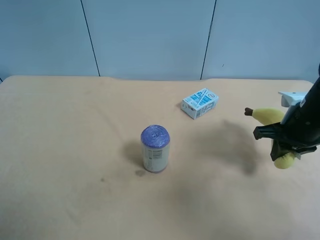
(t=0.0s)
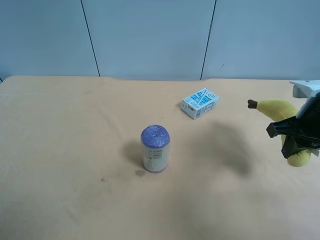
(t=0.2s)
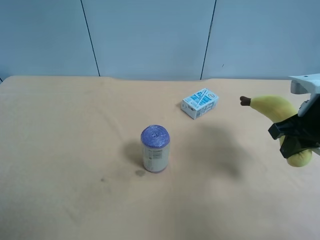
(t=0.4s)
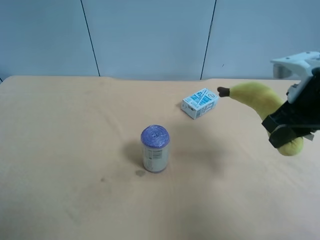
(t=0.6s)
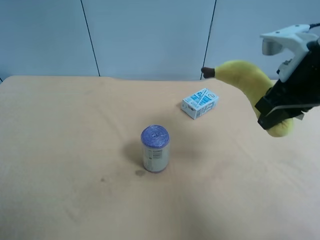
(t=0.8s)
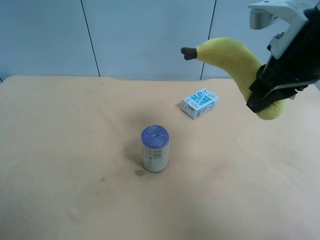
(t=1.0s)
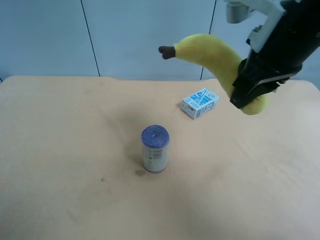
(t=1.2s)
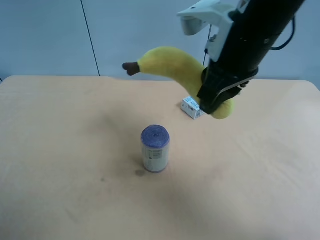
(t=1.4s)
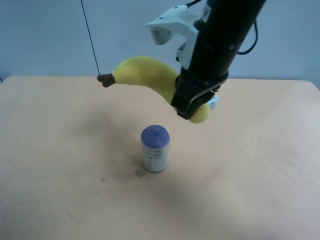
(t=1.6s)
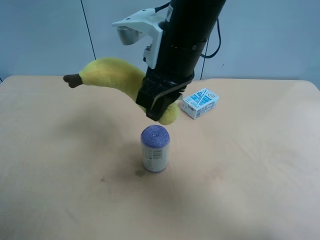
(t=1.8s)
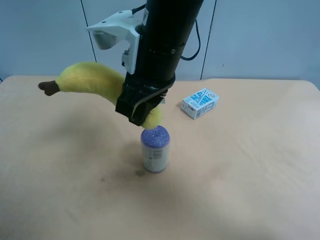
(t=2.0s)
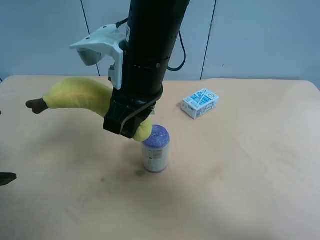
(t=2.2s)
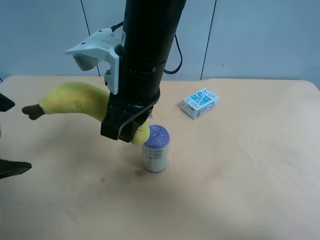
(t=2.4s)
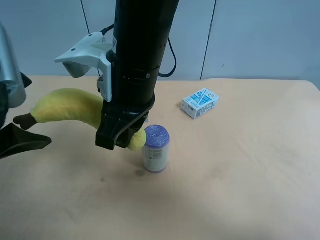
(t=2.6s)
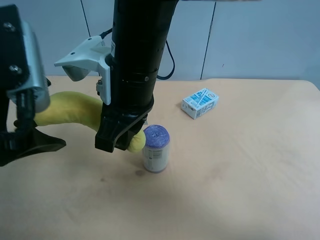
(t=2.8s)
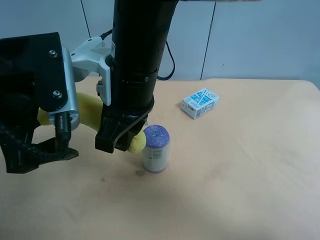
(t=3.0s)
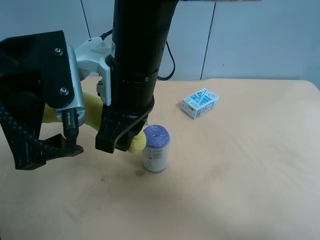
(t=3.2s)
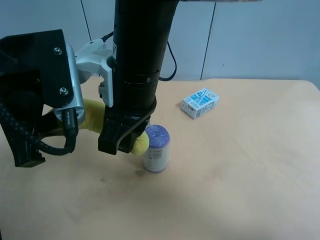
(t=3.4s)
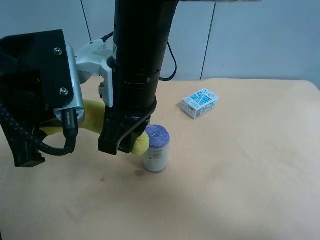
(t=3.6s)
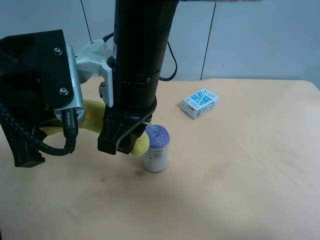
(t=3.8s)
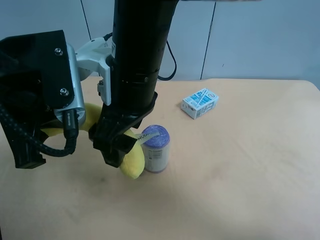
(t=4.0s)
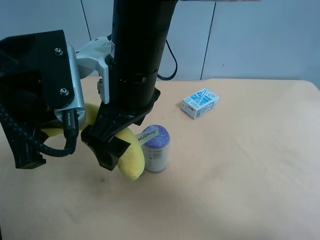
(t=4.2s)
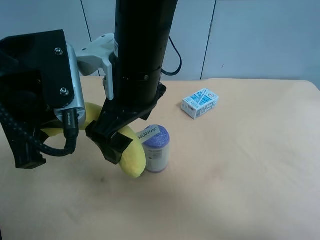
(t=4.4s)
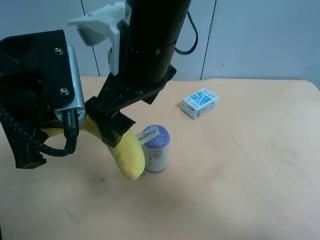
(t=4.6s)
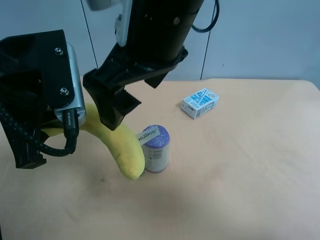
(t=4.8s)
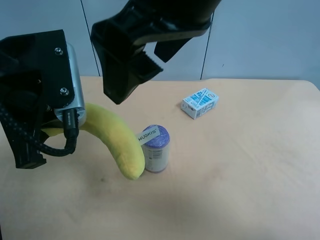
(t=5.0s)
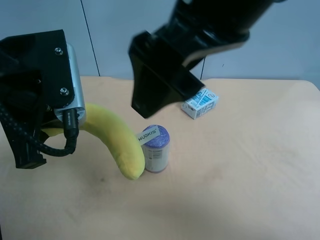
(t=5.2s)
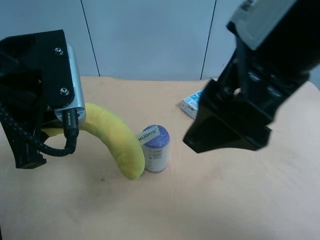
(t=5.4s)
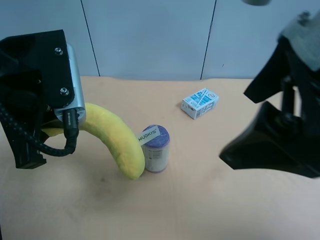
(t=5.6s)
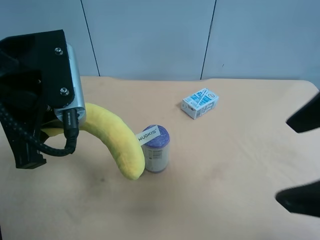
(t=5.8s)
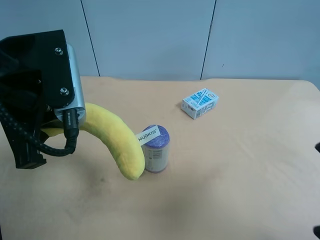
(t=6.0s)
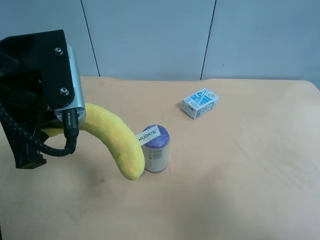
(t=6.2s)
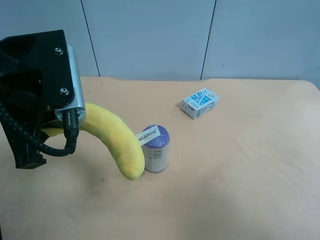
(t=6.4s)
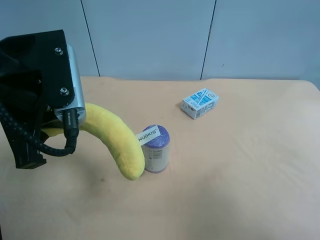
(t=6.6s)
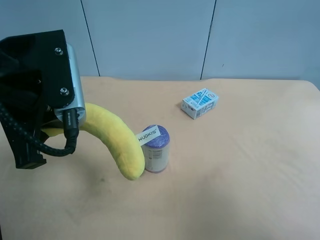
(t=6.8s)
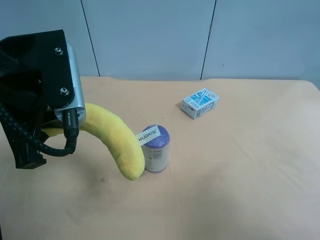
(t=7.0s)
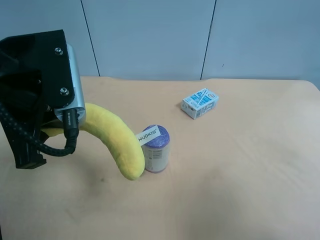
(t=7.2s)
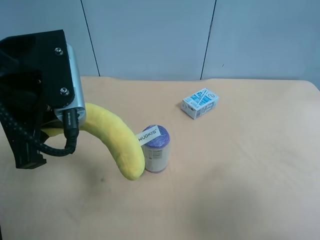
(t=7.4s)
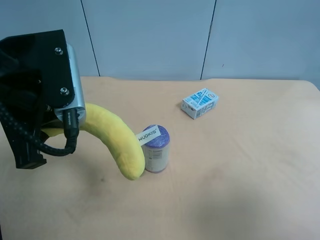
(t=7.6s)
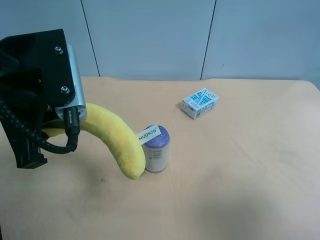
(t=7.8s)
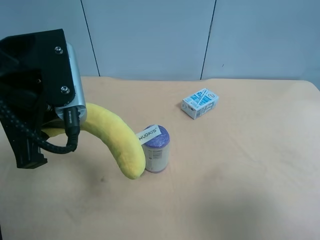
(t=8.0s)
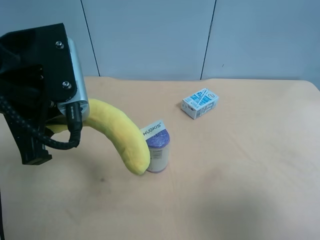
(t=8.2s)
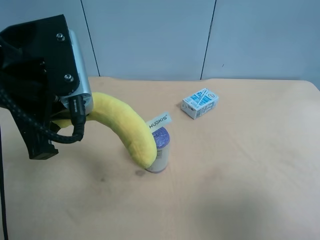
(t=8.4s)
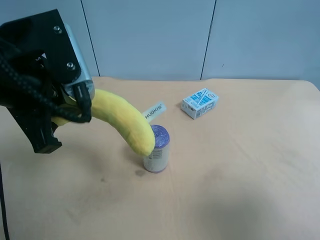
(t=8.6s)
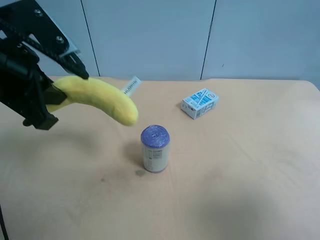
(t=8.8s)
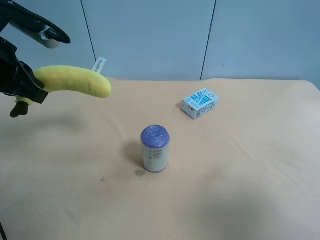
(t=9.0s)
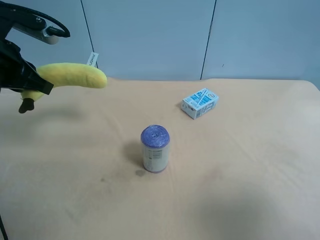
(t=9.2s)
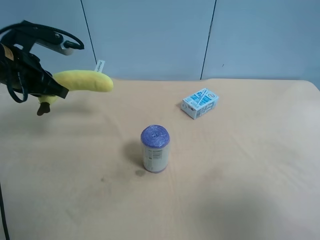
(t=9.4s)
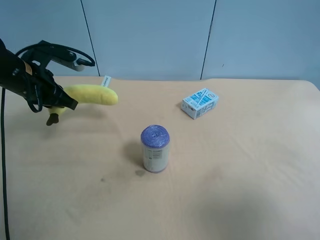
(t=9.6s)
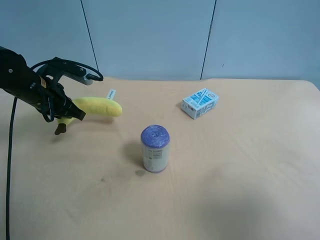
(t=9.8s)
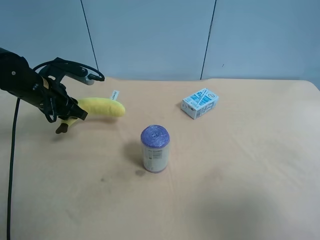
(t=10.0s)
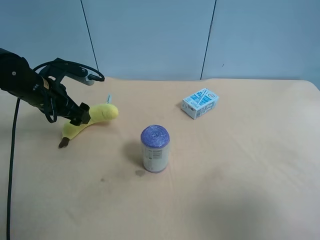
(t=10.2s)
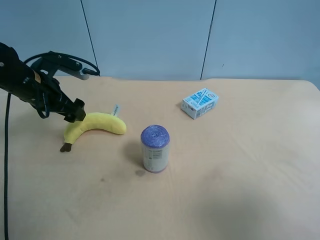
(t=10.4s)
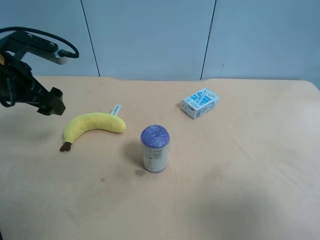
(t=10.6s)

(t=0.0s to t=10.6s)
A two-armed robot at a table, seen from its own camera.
Task of the whole recording: use the right gripper to pick up the item and transfer it from the right gripper to the left gripper.
t=0.0s - t=1.6s: The right gripper travels to the left and upward by approximately 25 cm; the left gripper is displaced forward by about 5 cm.
t=1.6s - t=3.0s: The right gripper shifts approximately 10 cm to the left; the left gripper goes roughly 15 cm to the right and forward.
t=3.0s - t=4.6s: The left gripper closes its fingers. Meanwhile the right gripper changes place by some 5 cm, and opens up.
t=4.6s - t=6.0s: The right gripper travels to the right and backward by roughly 30 cm.
t=6.0s - t=7.6s: The right gripper travels to the right by some 5 cm.
t=7.6s - t=9.0s: The left gripper travels to the left and forward by roughly 10 cm.
t=9.0s - t=10.6s: The left gripper travels downward by approximately 5 cm, and opens.

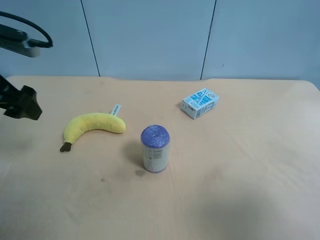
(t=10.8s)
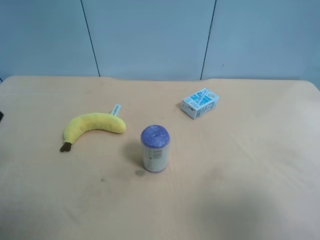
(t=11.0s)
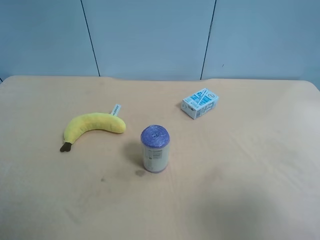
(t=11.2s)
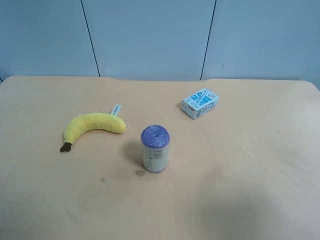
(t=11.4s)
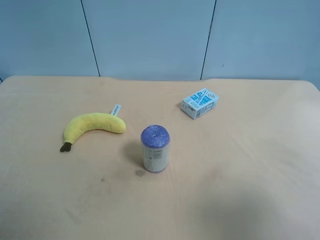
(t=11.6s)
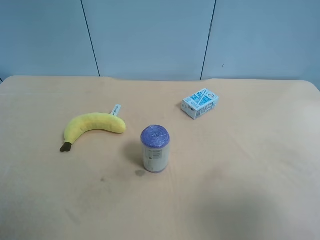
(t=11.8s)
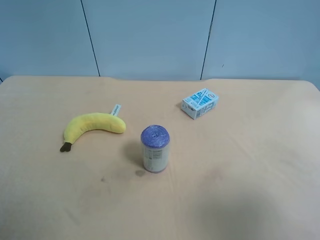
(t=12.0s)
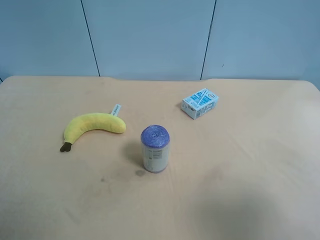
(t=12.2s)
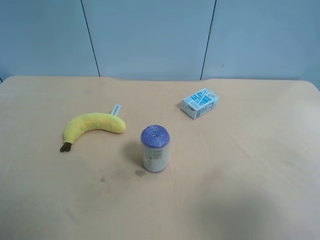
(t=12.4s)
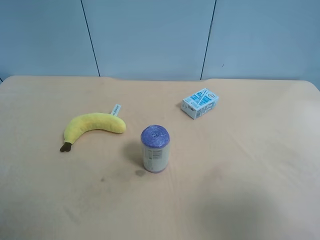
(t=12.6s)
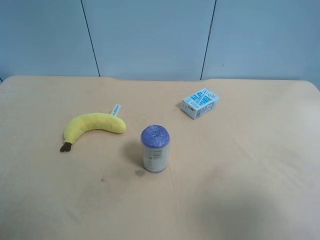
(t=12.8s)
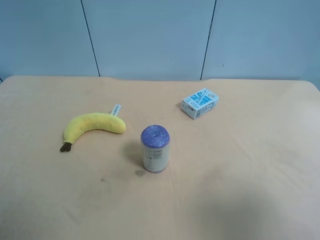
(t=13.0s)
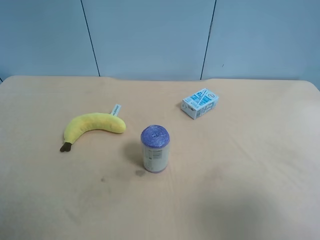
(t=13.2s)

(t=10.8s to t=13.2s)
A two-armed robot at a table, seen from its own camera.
Task of the whole recording: use the right gripper to pick up the item and transfer it from the right gripper to the left gripper.
t=10.8s - t=12.0s: The left gripper travels backward by roughly 20 cm.
